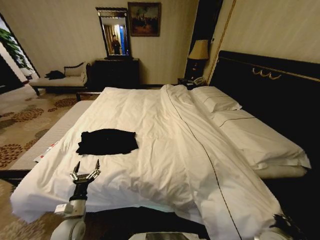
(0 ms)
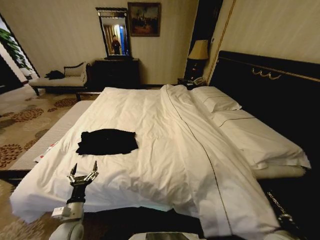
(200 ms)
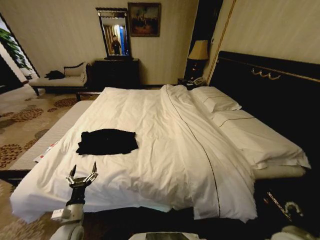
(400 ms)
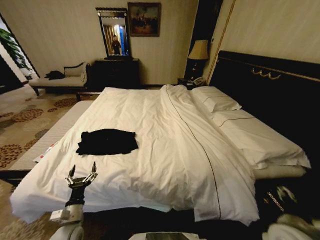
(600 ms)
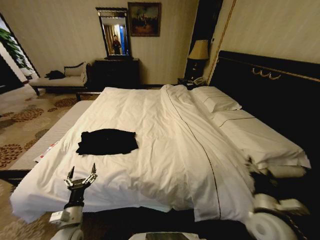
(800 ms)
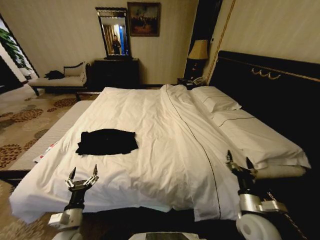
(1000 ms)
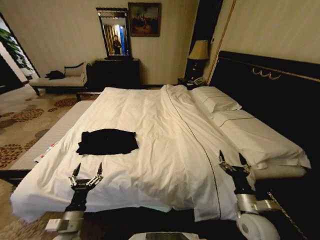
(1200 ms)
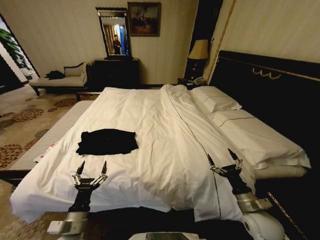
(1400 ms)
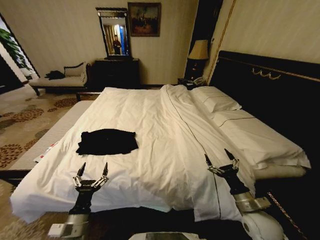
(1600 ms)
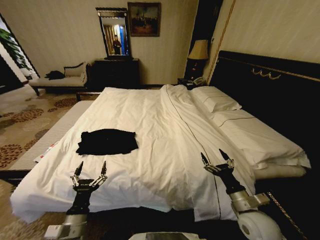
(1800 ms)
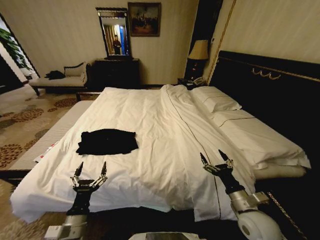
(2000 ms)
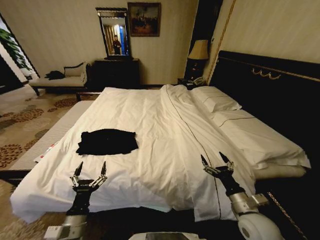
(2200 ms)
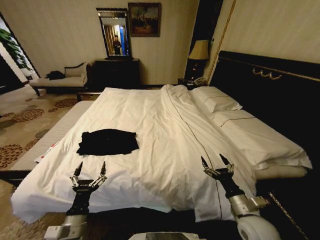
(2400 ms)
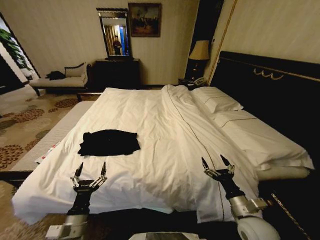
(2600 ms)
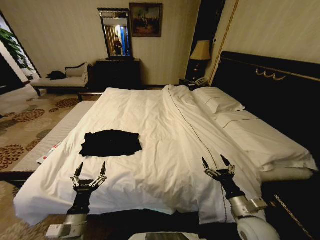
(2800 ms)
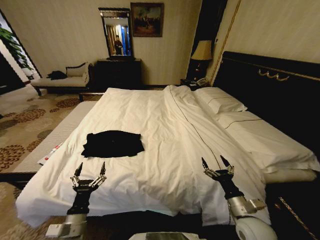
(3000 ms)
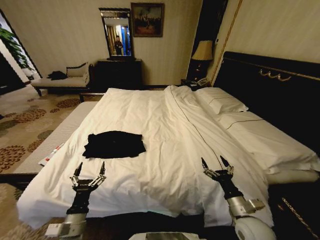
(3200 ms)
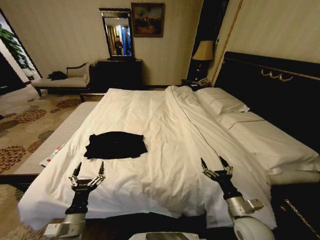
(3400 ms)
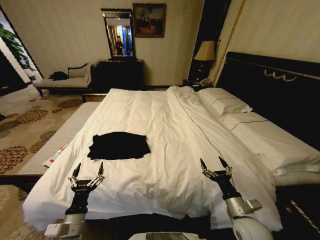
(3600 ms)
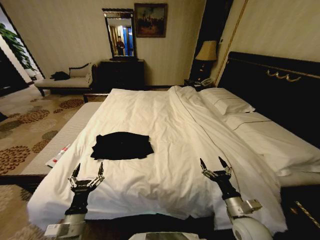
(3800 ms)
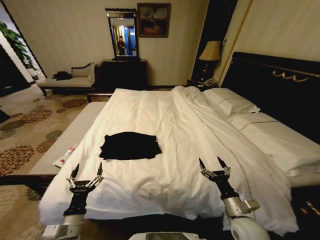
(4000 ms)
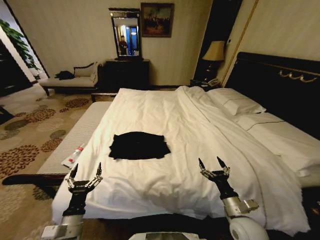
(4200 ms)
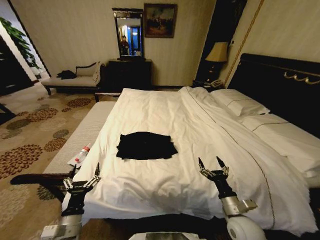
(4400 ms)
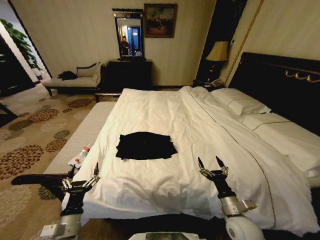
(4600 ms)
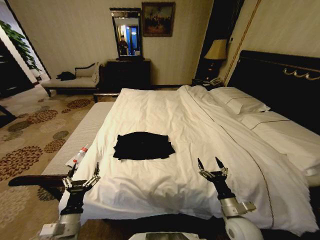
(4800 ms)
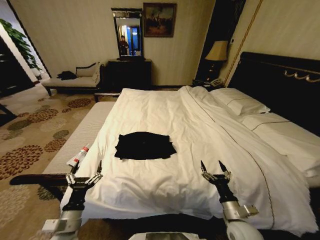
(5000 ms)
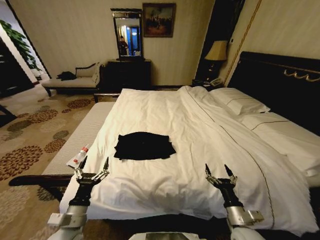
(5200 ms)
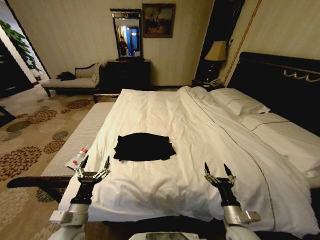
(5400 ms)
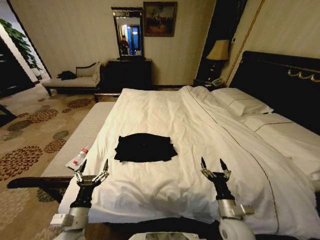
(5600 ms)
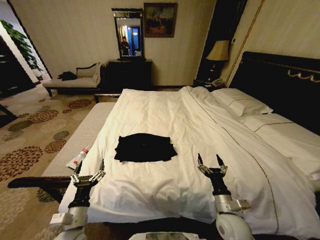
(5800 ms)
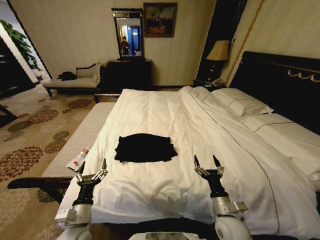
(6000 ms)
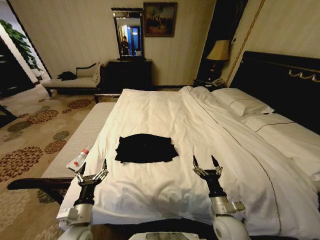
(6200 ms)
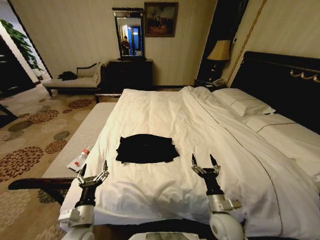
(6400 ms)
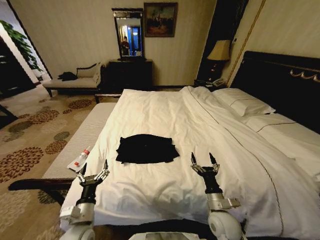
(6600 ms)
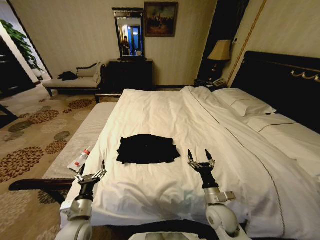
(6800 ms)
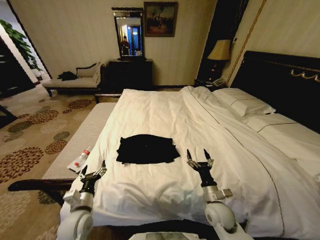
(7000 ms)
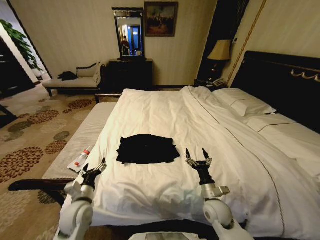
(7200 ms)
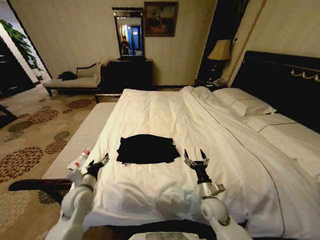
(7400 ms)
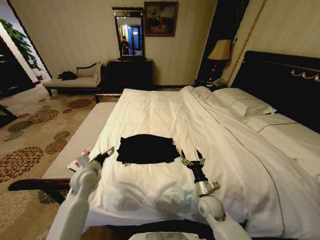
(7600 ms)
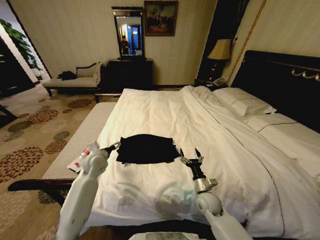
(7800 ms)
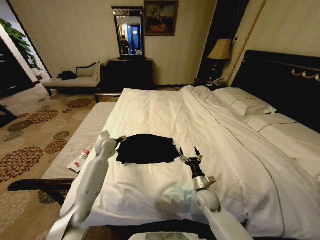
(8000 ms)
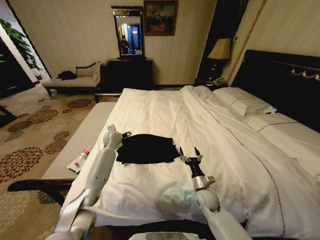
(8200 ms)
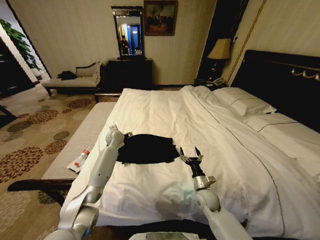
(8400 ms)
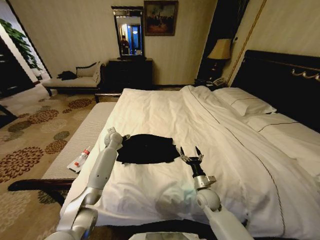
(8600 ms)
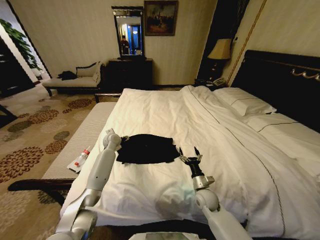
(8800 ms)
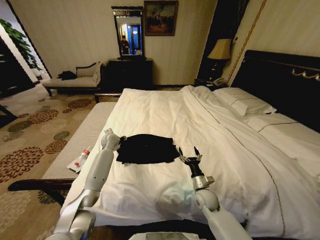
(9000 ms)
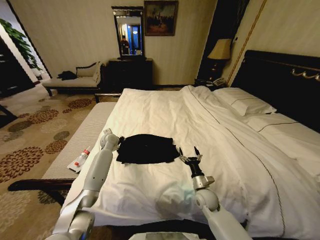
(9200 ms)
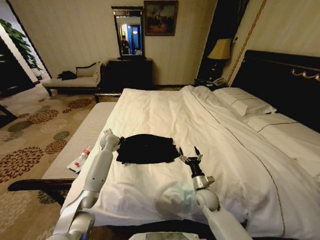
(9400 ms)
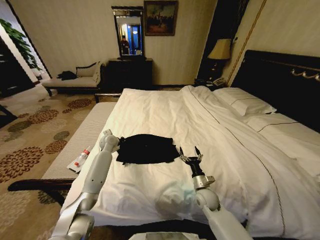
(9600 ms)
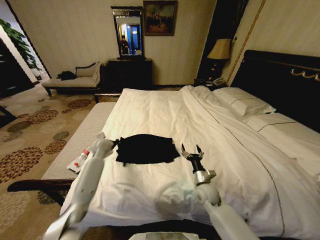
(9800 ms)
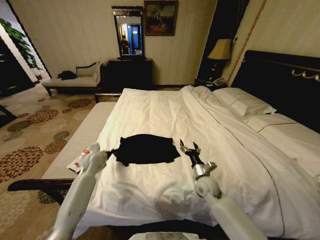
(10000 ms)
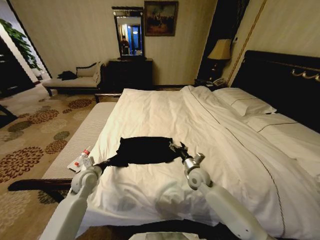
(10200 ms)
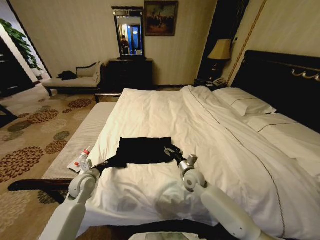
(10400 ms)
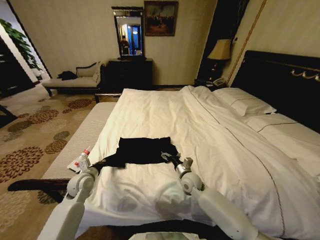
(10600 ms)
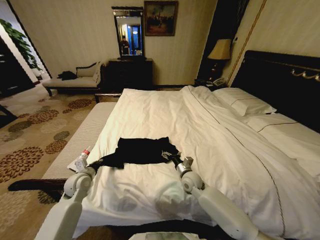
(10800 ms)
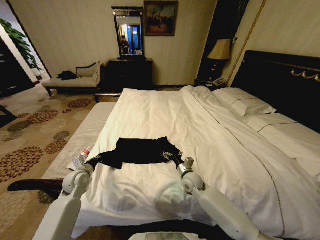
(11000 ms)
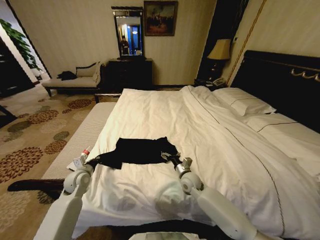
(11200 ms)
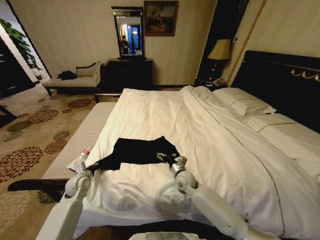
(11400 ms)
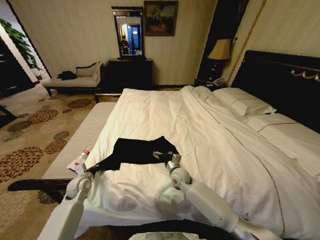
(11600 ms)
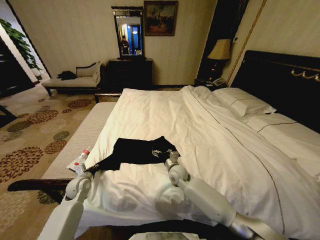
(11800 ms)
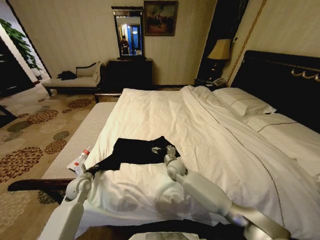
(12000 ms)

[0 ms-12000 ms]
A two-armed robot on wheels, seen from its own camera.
Task of the whole recording: Fold the clothes on the bed.
0 ms to 1600 ms: The right gripper shifts approximately 10 cm to the left, forward and upward, and opens up; the left gripper moves upward, backward and to the right, some 10 cm.
4400 ms to 6000 ms: The grippers stay close to where they were, moving slightly.
6000 ms to 7600 ms: The right gripper heads forward and downward, covering roughly 10 cm. The left gripper shifts some 20 cm forward.
7600 ms to 9000 ms: The left gripper shifts roughly 20 cm forward, and closes its fingers.
9000 ms to 10400 ms: The right gripper is displaced forward, upward and to the left by roughly 10 cm. Meanwhile the left gripper goes roughly 20 cm backward, and closes its fingers.
10400 ms to 12000 ms: The left gripper changes place by about 5 cm; the right gripper travels to the left and forward by some 10 cm.

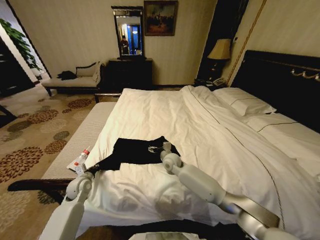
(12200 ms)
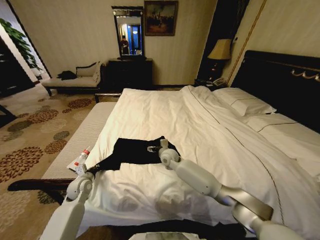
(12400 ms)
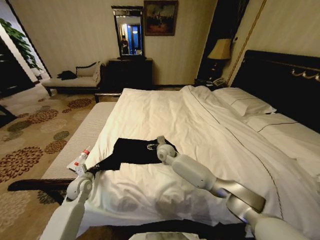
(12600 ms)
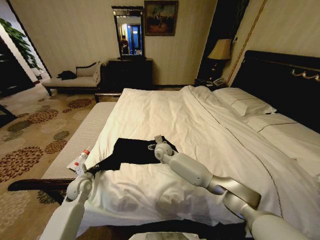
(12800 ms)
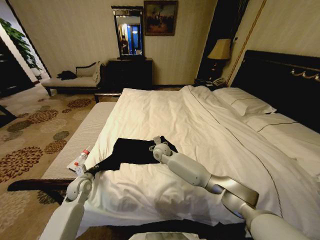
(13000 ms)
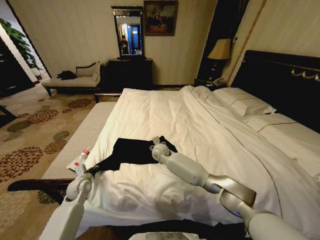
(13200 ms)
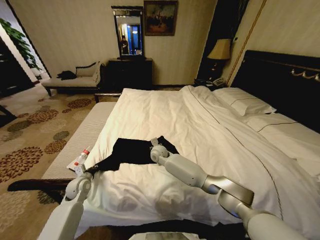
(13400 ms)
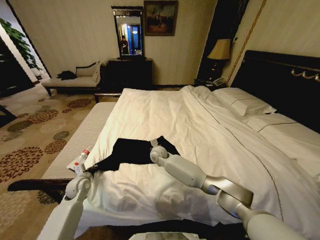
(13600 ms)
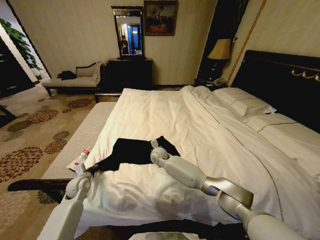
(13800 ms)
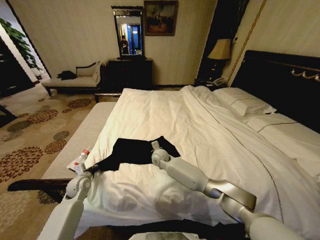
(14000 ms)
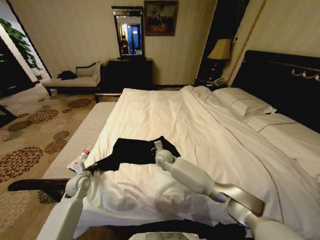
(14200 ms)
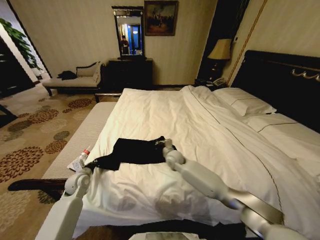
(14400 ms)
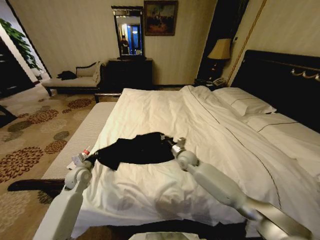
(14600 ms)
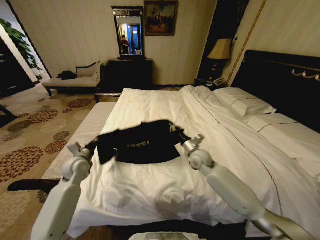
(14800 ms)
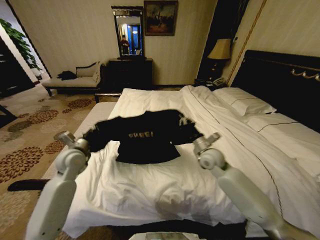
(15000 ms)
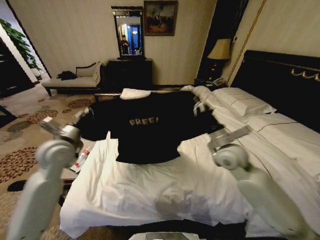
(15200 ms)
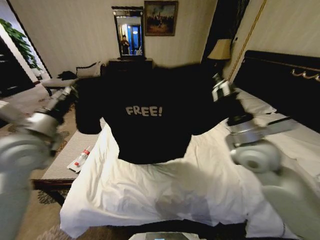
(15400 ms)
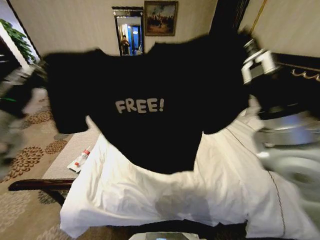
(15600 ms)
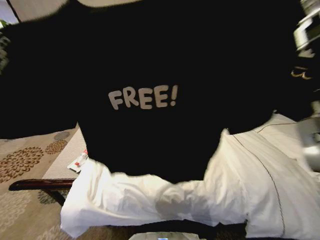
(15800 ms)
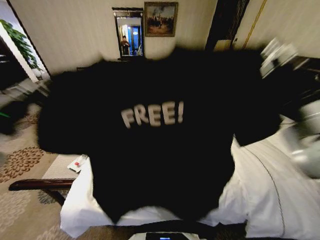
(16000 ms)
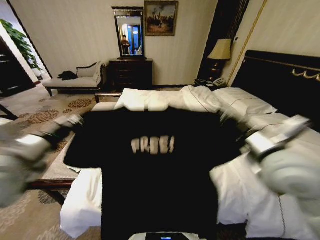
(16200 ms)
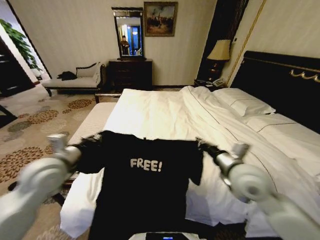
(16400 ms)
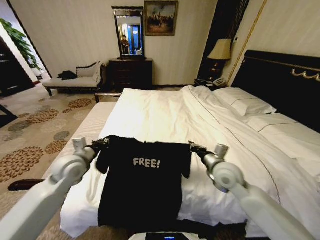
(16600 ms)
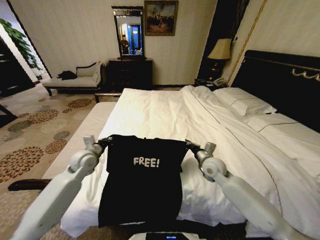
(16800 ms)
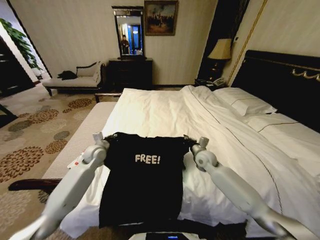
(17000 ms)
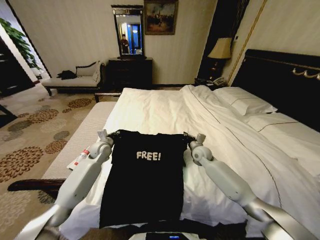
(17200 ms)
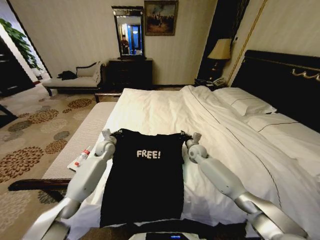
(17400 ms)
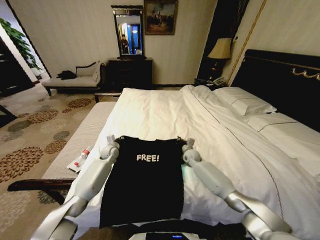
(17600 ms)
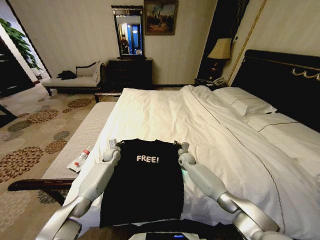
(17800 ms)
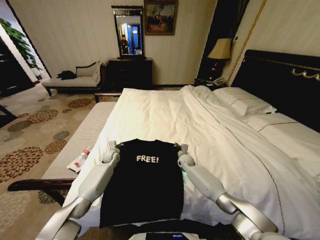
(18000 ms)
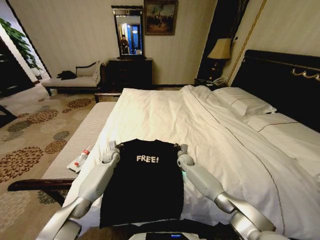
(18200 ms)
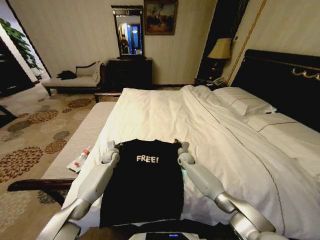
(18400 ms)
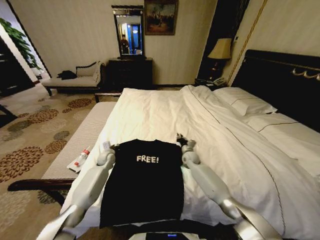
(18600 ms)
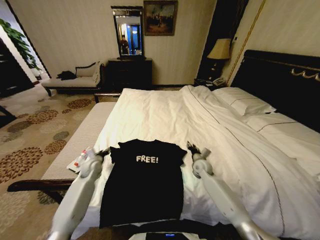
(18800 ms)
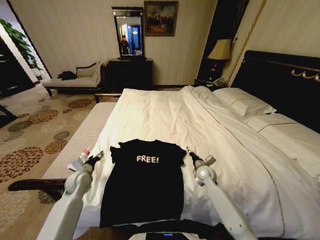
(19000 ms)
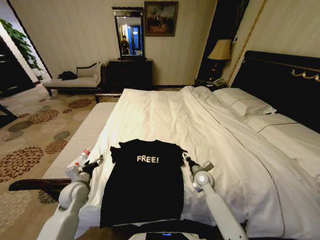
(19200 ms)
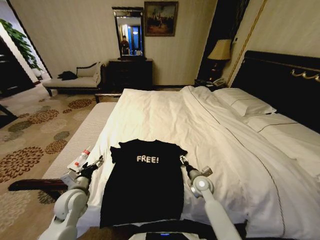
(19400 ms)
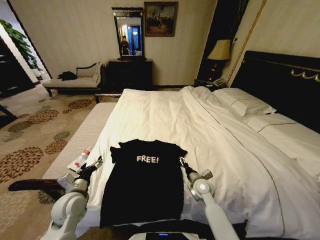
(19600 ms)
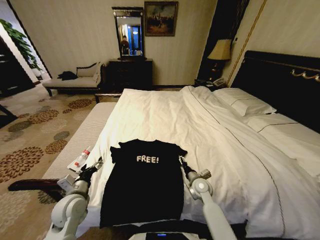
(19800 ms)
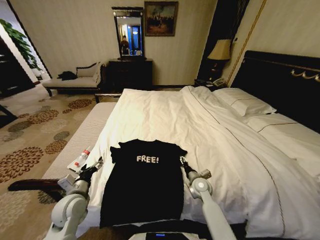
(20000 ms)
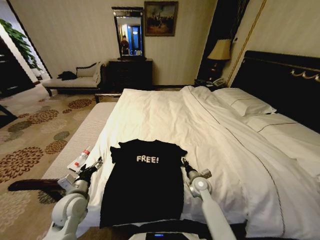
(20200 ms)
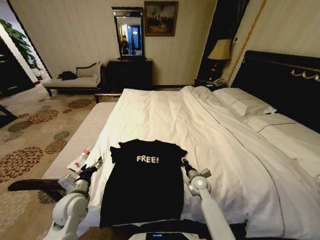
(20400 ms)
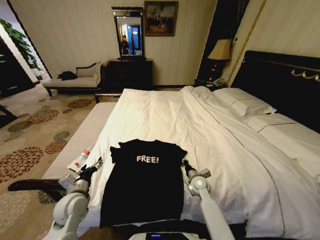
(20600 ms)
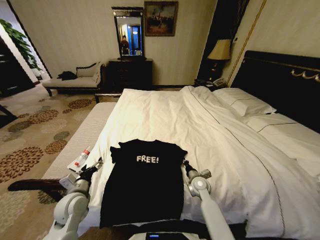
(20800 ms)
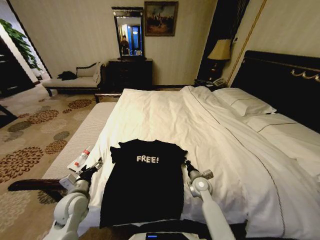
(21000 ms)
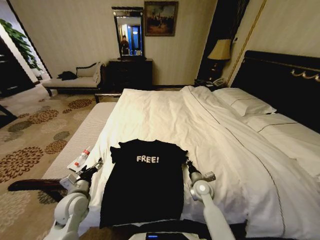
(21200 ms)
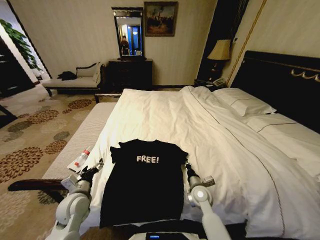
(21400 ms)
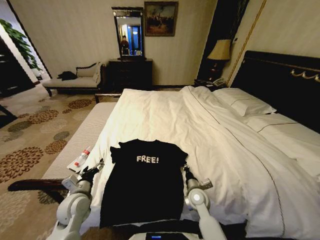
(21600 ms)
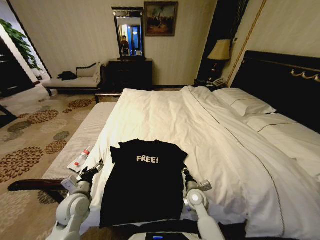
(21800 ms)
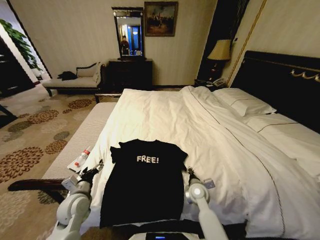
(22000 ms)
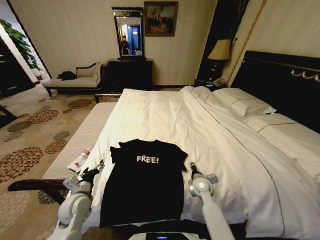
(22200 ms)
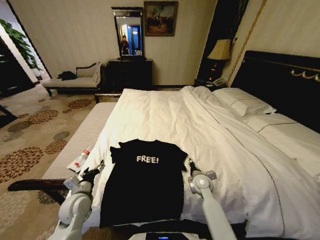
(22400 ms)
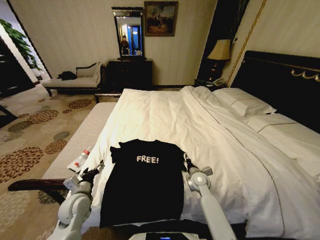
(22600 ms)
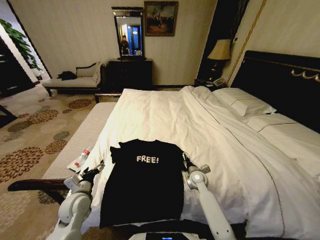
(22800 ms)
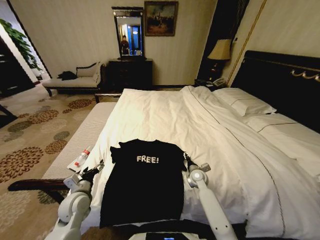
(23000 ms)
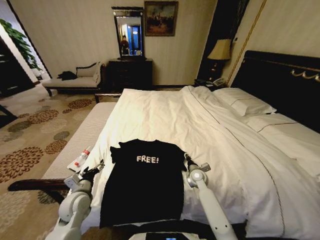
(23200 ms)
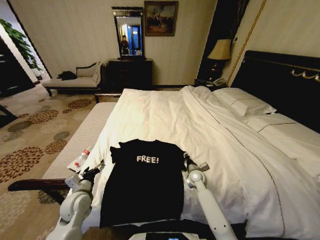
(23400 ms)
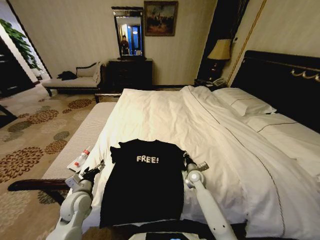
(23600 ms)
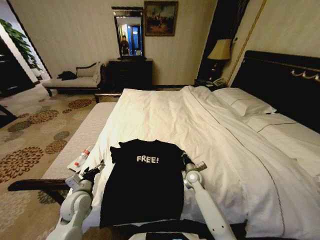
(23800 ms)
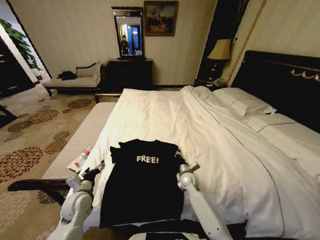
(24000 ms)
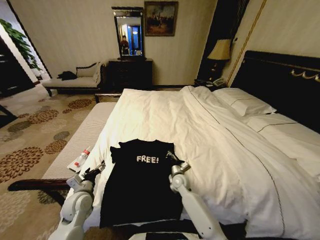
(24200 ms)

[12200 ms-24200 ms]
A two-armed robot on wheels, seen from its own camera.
Task of the whole recording: Fold the clothes on the bed.
12200 ms to 13800 ms: The right gripper is displaced to the left by approximately 5 cm, and closes its fingers.
13800 ms to 15200 ms: The right gripper goes some 35 cm to the right, upward and backward; the left gripper travels upward by some 25 cm.
15200 ms to 16600 ms: The left gripper moves approximately 15 cm upward and comes back. Meanwhile the right gripper reaches roughly 20 cm upward, then returns.
16600 ms to 18200 ms: Both grippers move downward and forward, some 30 cm.
18200 ms to 19800 ms: The left gripper travels backward by about 30 cm, and opens its fingers. Meanwhile the right gripper shifts approximately 20 cm backward, and opens.
19800 ms to 21200 ms: The right gripper closes up.
21200 ms to 22600 ms: The right gripper opens its fingers.
22600 ms to 24200 ms: The right gripper goes some 10 cm to the left and downward, and closes its fingers.
